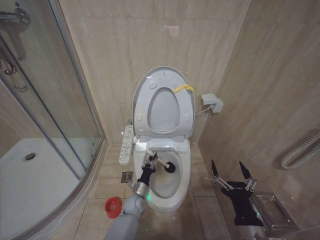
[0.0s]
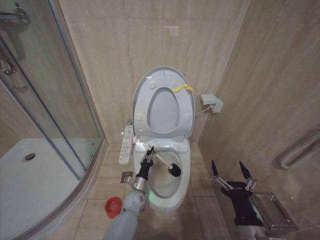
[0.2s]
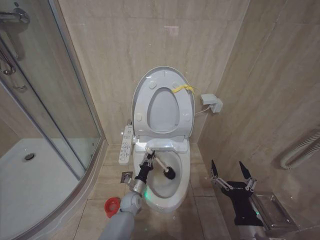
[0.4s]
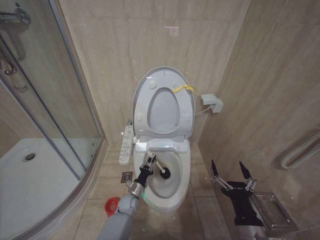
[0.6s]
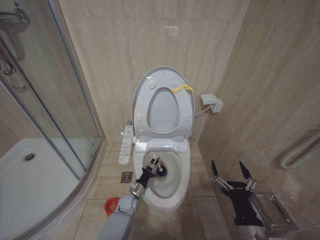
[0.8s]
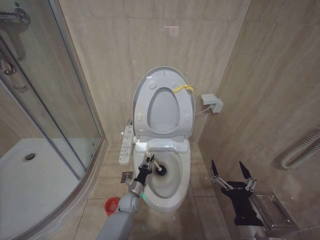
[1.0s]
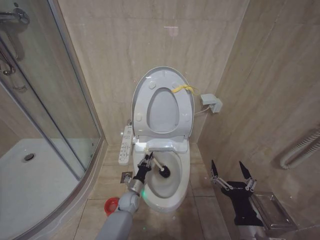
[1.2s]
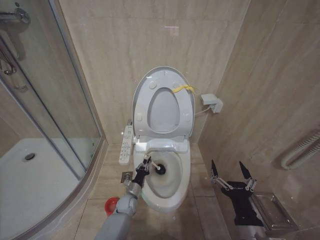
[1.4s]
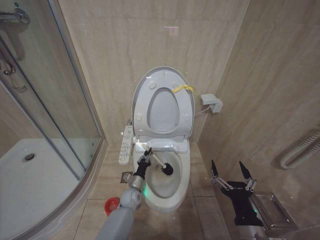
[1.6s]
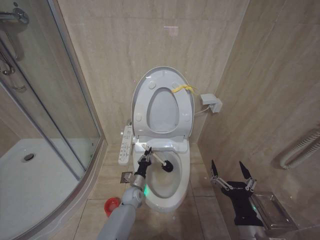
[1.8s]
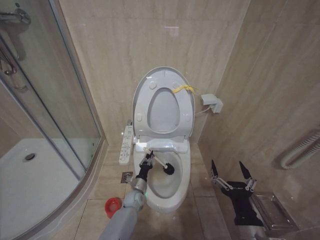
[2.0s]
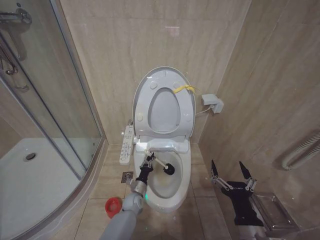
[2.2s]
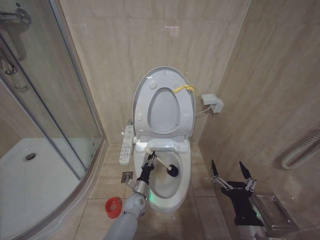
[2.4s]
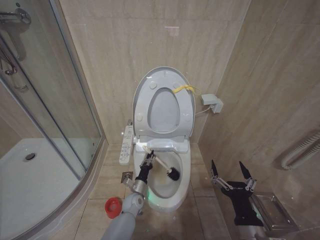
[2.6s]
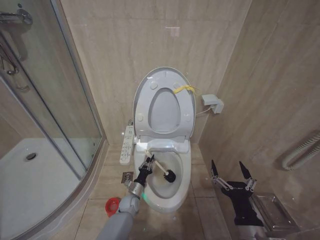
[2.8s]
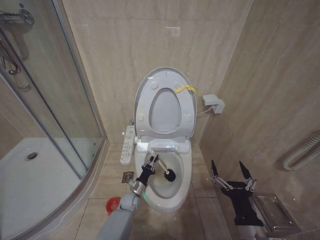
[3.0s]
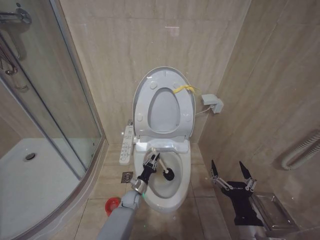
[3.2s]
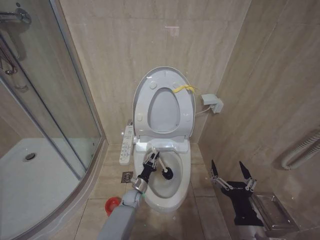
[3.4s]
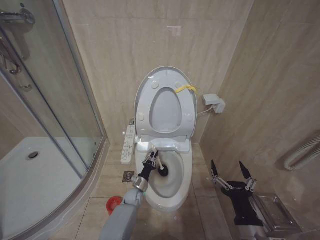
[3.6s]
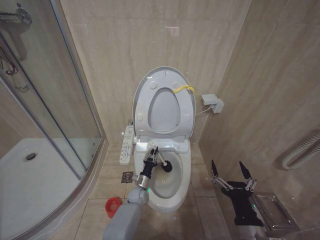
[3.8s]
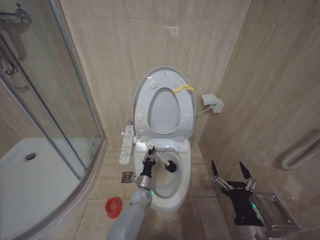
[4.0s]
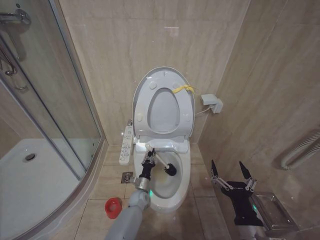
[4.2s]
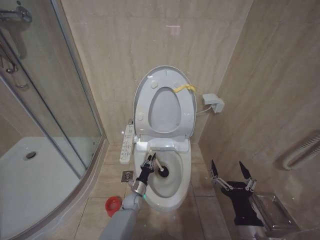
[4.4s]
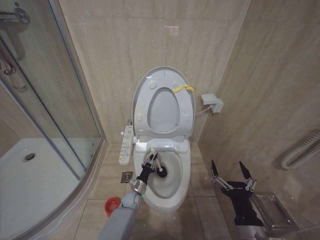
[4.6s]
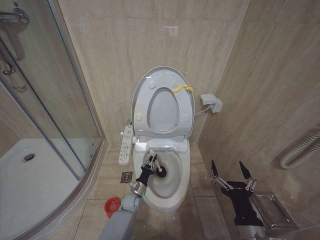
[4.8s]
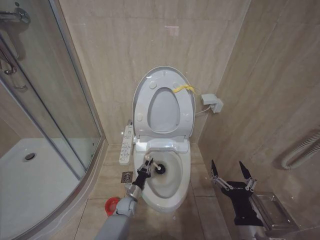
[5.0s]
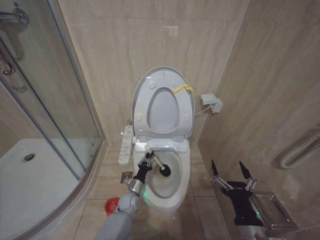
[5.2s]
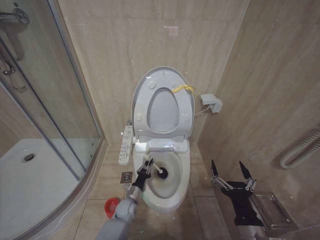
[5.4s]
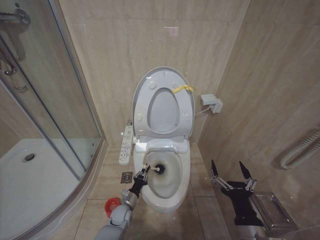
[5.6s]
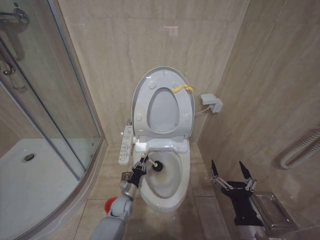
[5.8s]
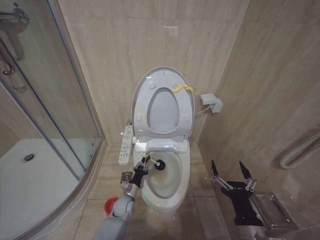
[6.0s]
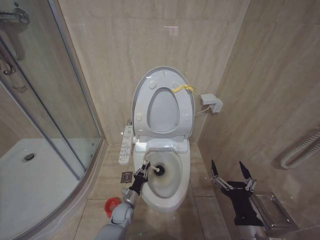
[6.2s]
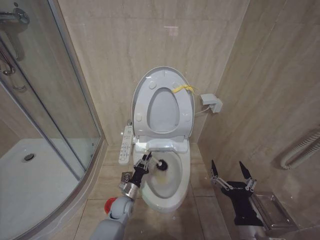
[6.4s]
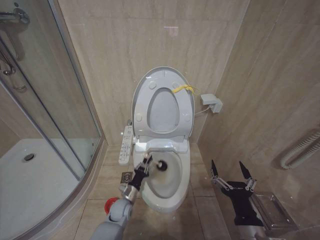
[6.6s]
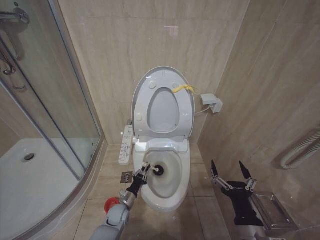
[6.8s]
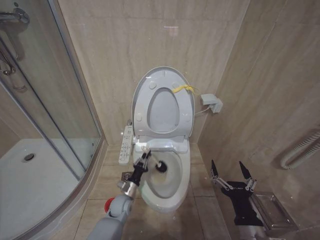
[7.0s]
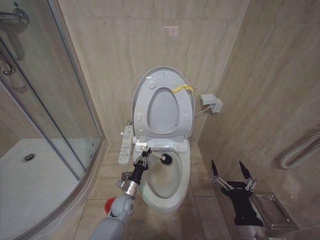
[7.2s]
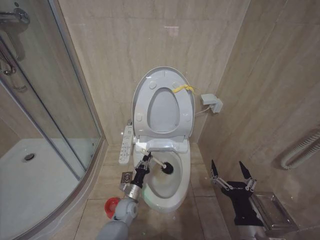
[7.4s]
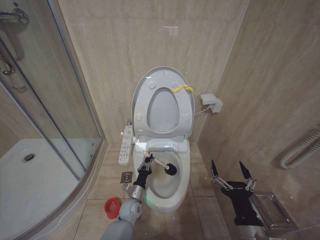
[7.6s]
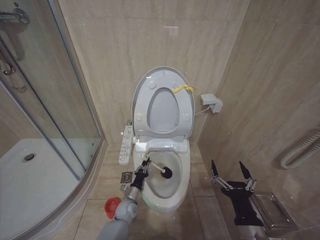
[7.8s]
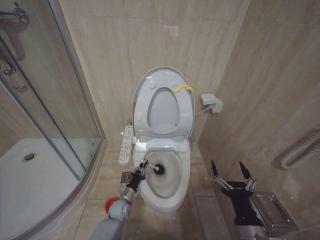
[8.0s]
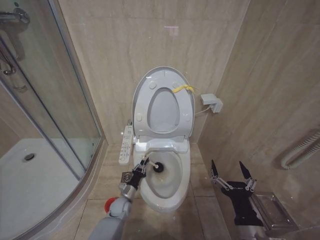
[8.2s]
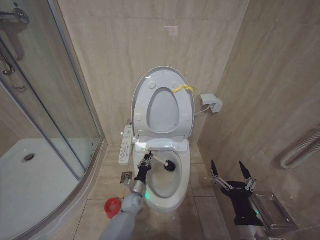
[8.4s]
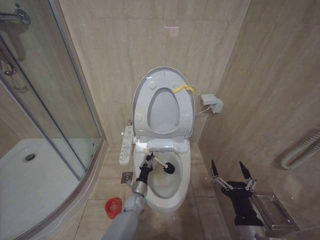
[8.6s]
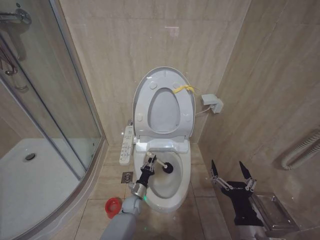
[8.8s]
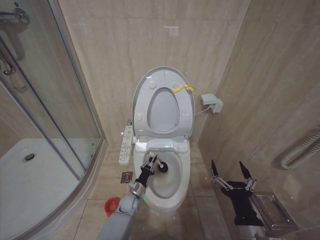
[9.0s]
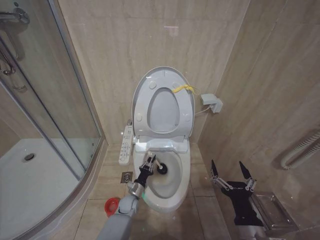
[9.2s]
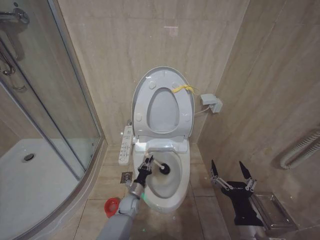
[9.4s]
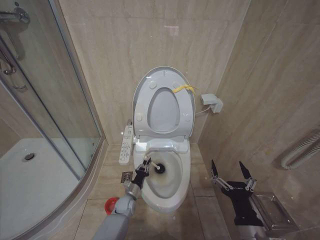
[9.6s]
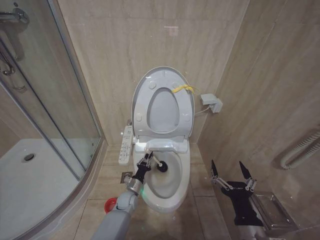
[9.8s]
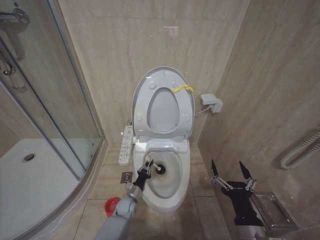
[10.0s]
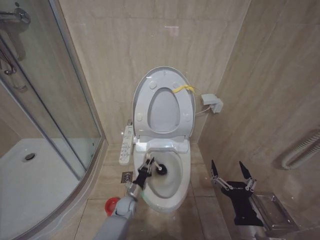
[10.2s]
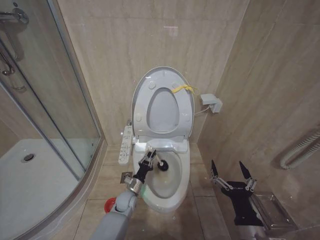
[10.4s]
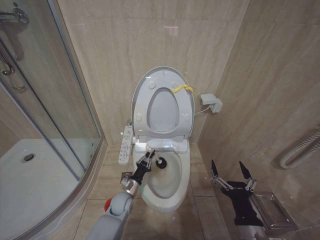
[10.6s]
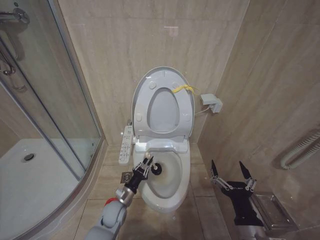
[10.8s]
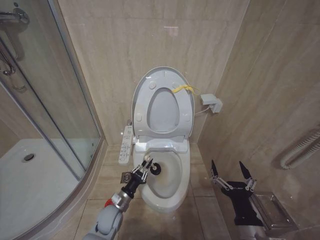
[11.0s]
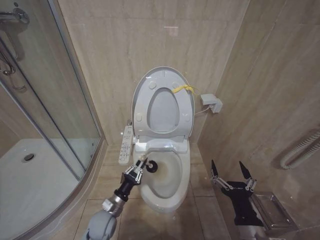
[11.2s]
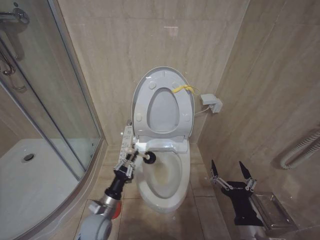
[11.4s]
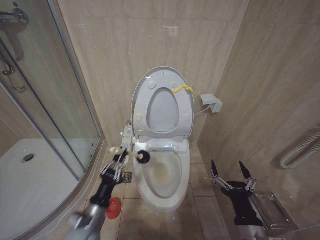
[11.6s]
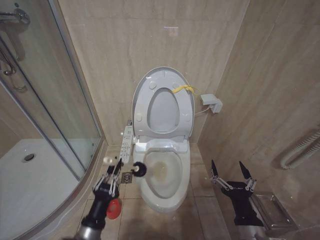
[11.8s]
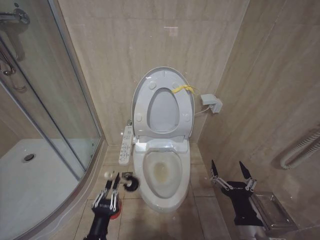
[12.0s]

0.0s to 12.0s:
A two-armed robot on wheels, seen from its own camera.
Task of the whole recording: Open the toilet lid, clean the toilet bowl with a toilet brush, close the toilet lid, and flush.
4.4s to 6.0s: The left gripper ends up approximately 5 cm from where it was.
6.0s to 7.6s: The grippers move only a little.
7.6s to 9.0s: The left gripper goes to the left and returns, roughly 5 cm each way.
9.0s to 10.4s: The left gripper heads upward, covering roughly 5 cm.
10.4s to 12.0s: The left gripper is displaced backward and upward by roughly 30 cm.

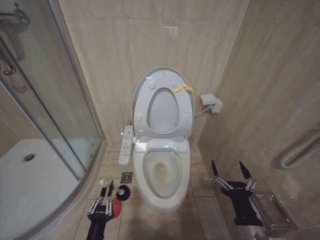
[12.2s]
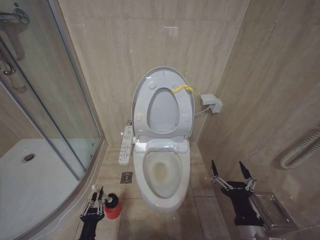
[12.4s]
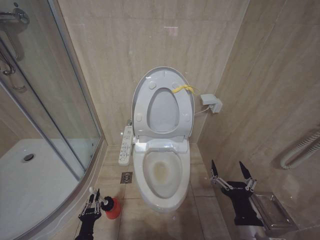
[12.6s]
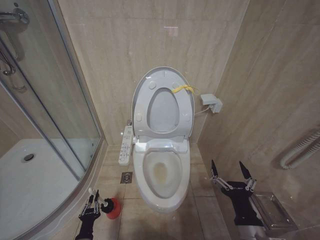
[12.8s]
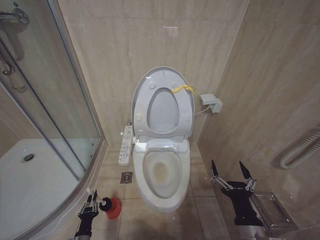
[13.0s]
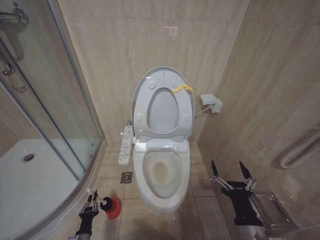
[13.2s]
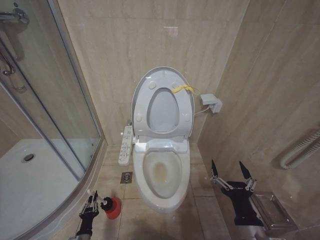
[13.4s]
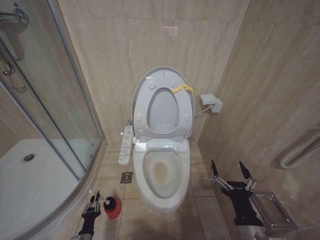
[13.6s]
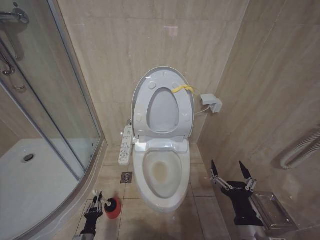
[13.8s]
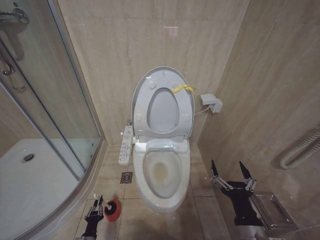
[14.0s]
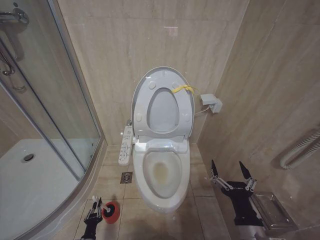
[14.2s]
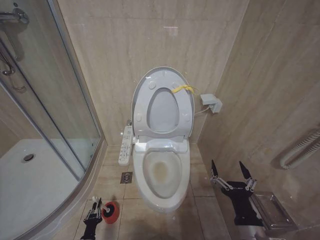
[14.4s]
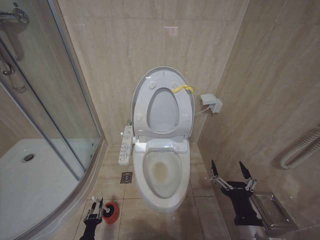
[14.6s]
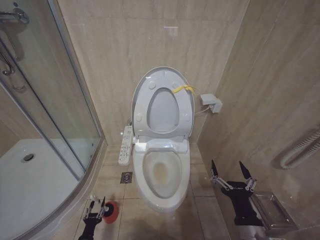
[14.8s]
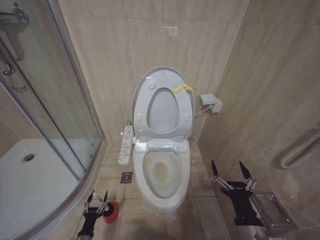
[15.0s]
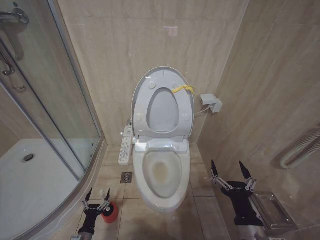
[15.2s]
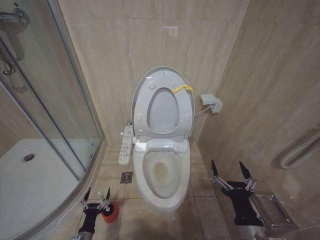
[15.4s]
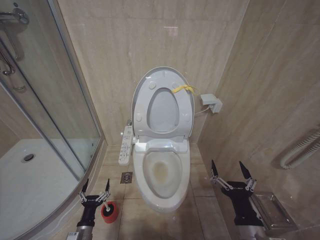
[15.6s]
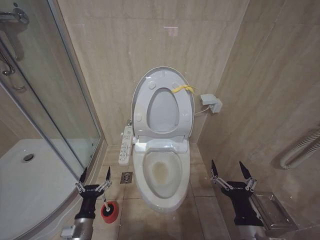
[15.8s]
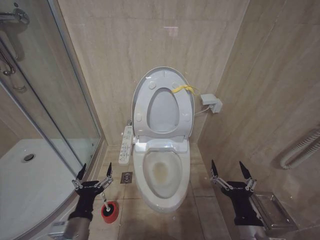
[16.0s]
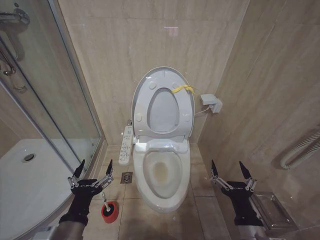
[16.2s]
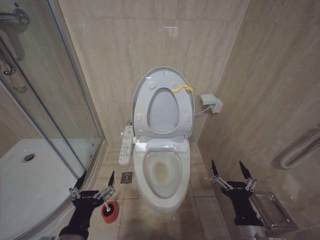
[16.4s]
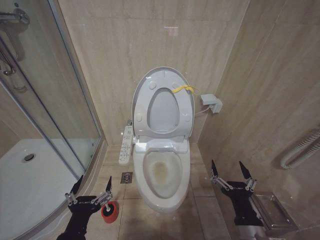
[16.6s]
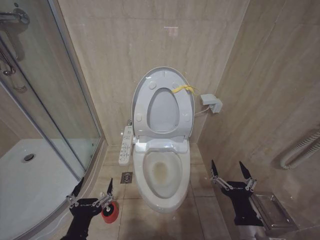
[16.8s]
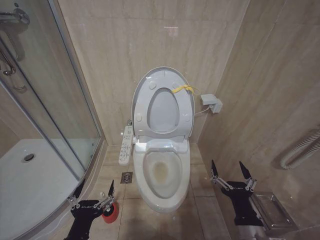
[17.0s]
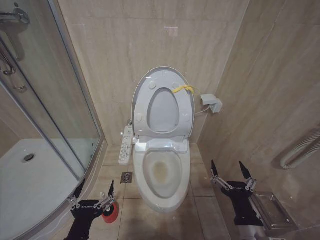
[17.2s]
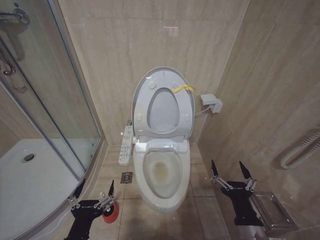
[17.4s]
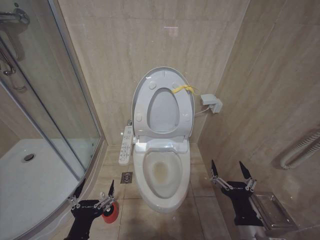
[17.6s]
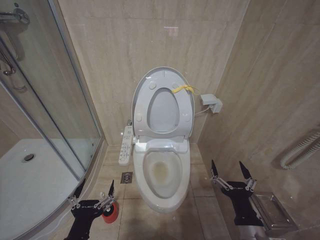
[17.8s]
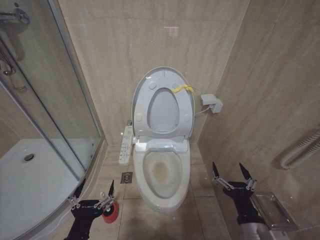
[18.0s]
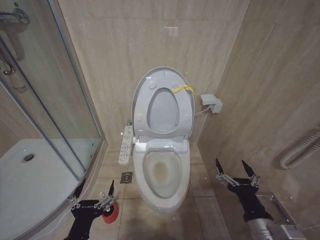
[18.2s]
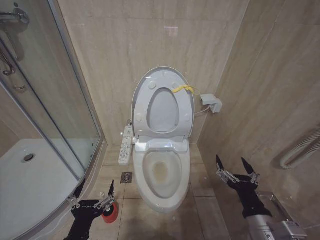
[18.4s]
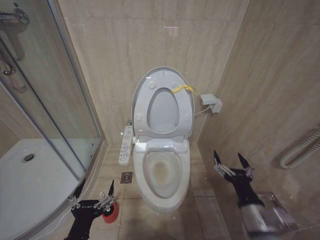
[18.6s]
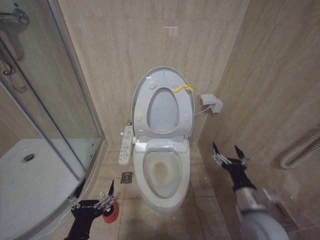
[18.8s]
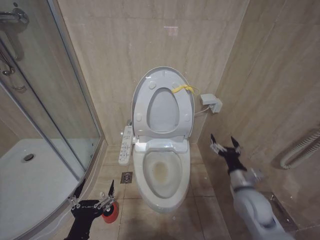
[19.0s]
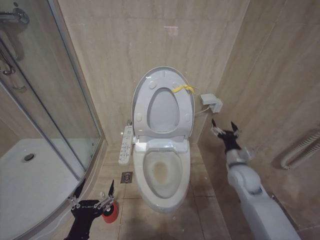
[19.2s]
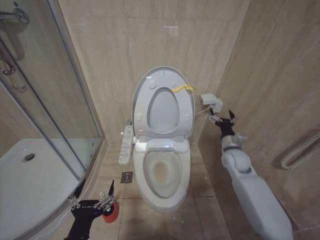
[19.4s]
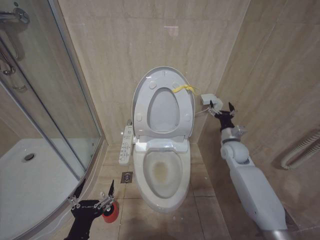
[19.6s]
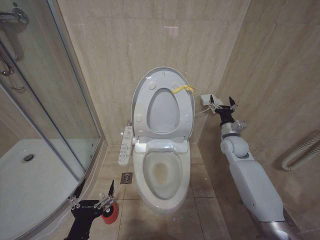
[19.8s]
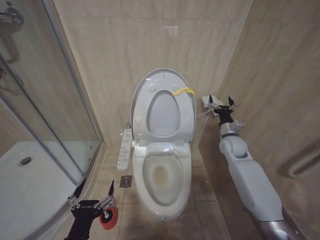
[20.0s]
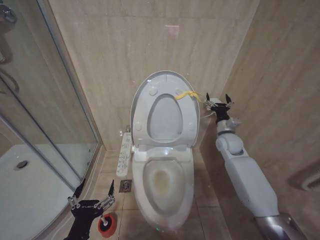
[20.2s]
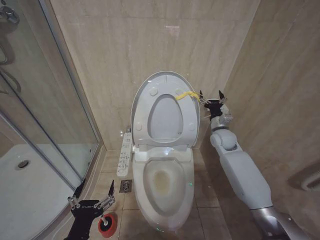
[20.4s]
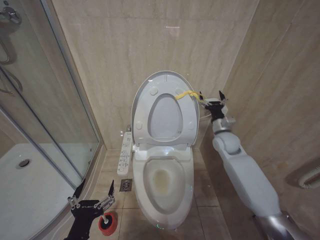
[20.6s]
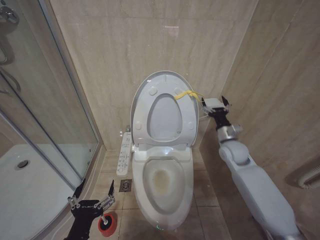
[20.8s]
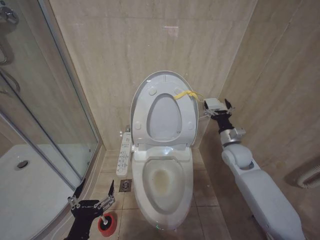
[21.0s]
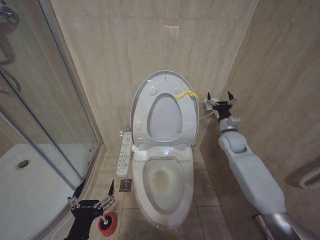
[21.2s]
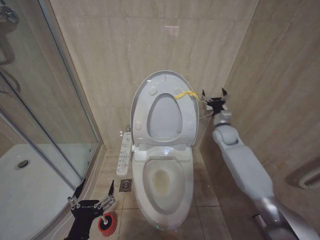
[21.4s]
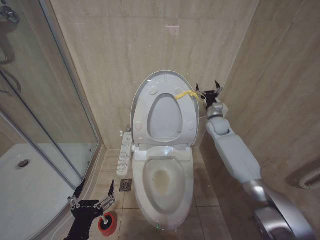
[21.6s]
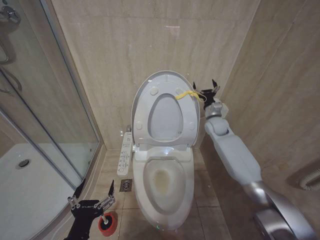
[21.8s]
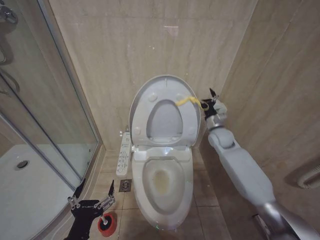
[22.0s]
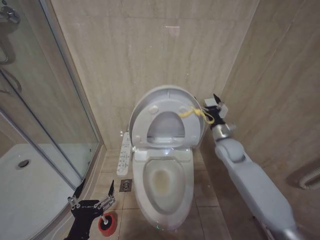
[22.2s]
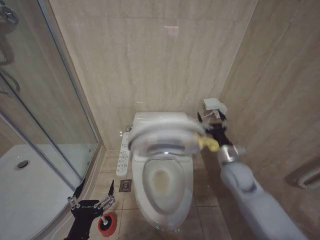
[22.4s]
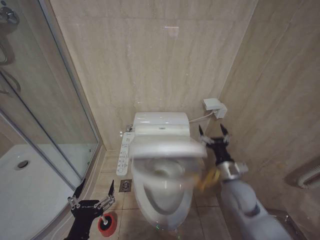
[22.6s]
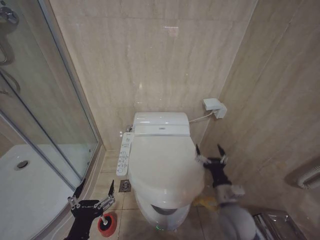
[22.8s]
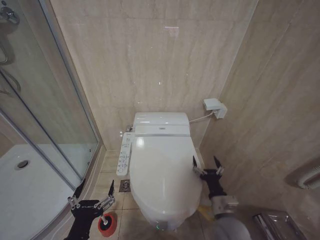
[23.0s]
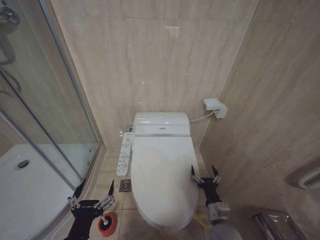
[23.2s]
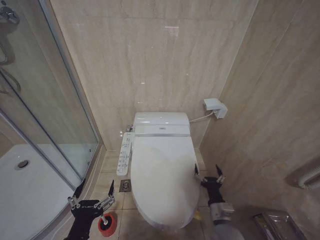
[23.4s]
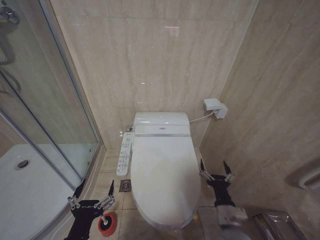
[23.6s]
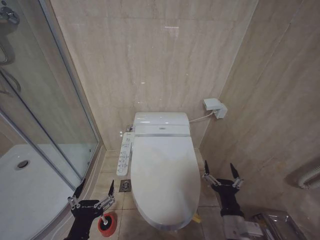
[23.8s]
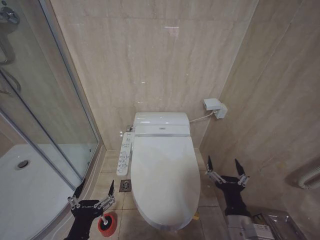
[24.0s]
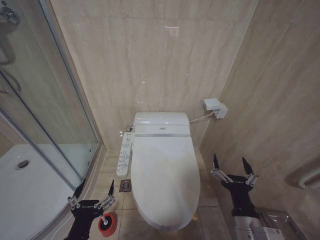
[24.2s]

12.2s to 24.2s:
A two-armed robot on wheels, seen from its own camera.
Task of the whole recording: Open the toilet lid, clean the toilet bowl with a toilet brush, close the toilet lid, and flush.
12.2s to 13.8s: The left gripper shifts some 25 cm downward, to the left and forward.
13.8s to 15.2s: The left gripper opens up.
15.2s to 16.6s: The left gripper goes approximately 35 cm upward.
16.6s to 18.2s: The grippers stay close to where they were, moving slightly.
18.2s to 19.8s: The right gripper shifts approximately 35 cm forward.
19.8s to 21.2s: The right gripper travels backward and back again, roughly 5 cm each way.
21.2s to 22.6s: The right gripper is displaced backward and downward by about 15 cm.
22.6s to 24.2s: The right gripper goes some 20 cm backward.
